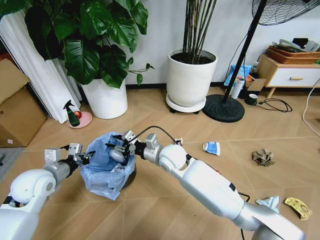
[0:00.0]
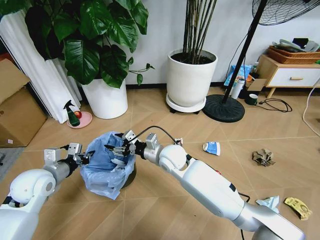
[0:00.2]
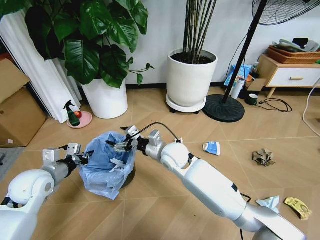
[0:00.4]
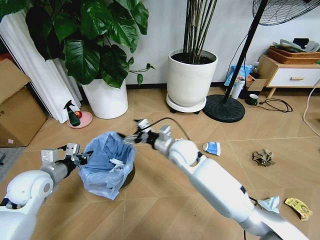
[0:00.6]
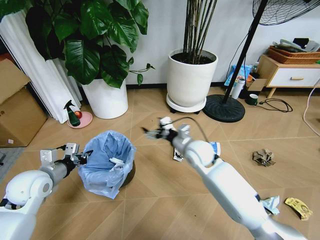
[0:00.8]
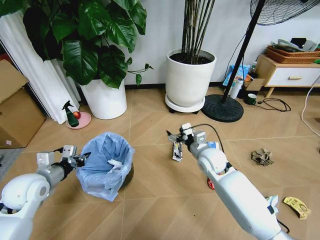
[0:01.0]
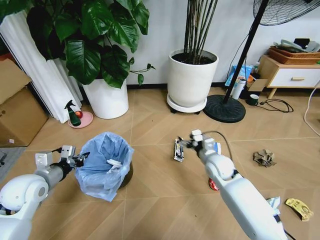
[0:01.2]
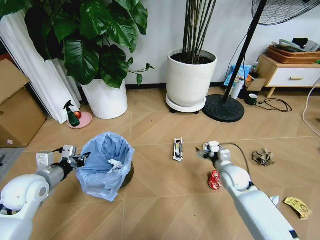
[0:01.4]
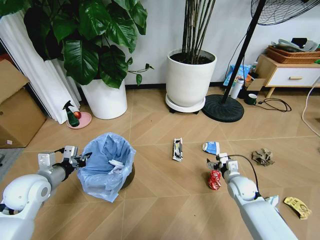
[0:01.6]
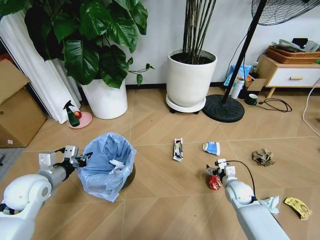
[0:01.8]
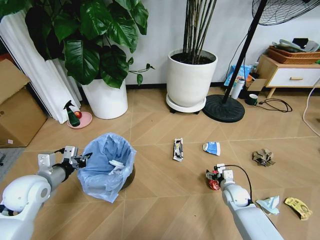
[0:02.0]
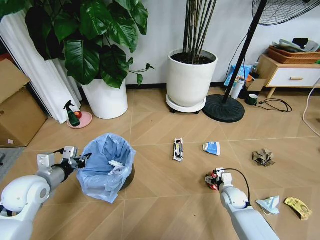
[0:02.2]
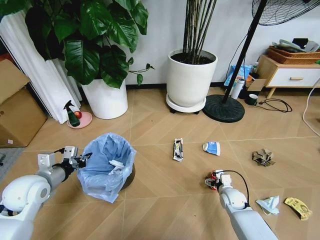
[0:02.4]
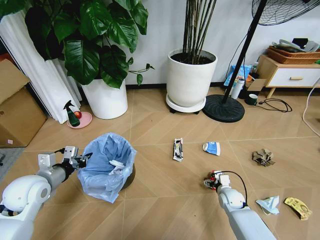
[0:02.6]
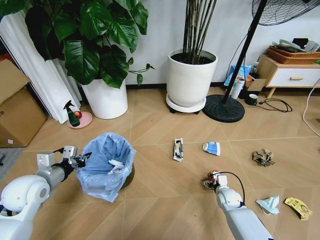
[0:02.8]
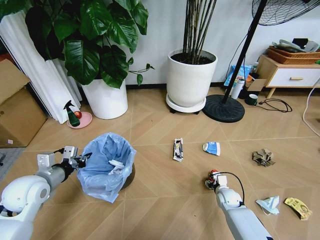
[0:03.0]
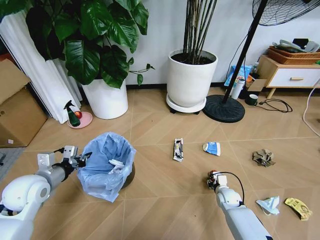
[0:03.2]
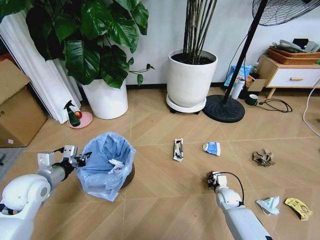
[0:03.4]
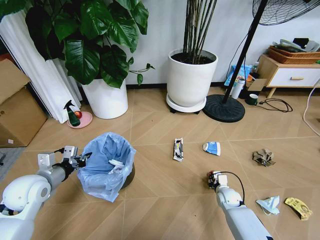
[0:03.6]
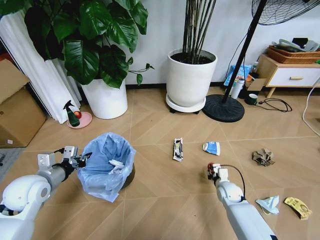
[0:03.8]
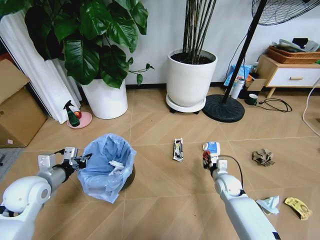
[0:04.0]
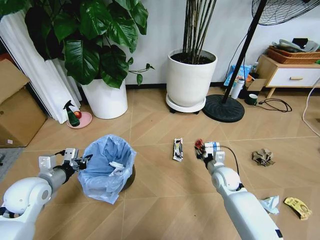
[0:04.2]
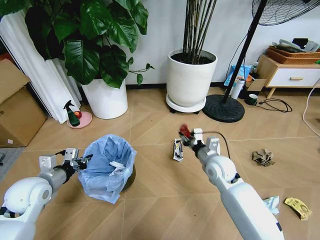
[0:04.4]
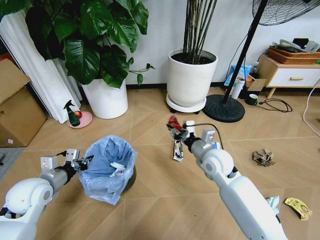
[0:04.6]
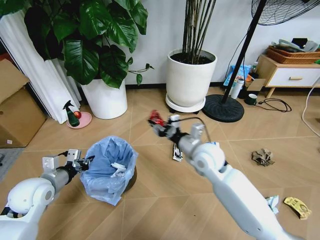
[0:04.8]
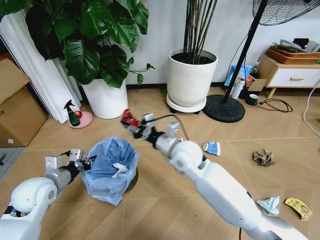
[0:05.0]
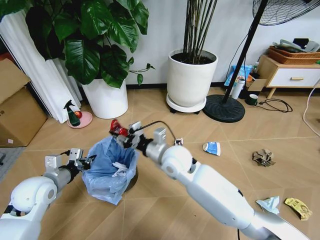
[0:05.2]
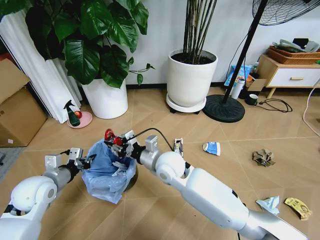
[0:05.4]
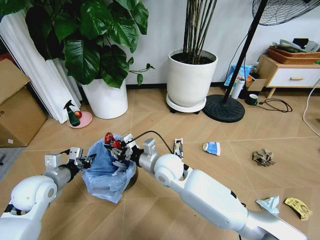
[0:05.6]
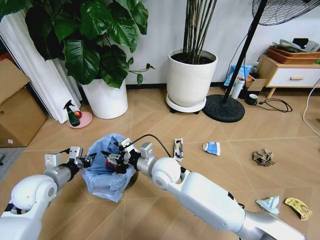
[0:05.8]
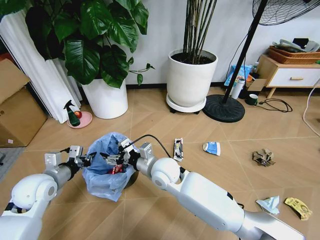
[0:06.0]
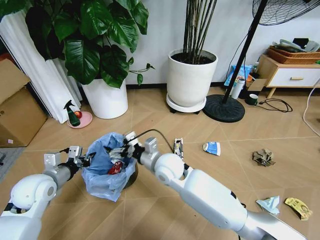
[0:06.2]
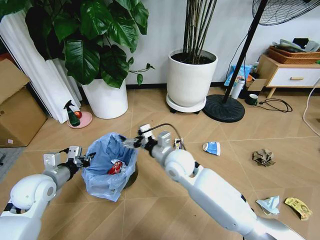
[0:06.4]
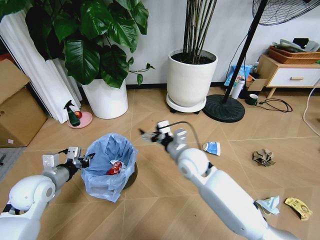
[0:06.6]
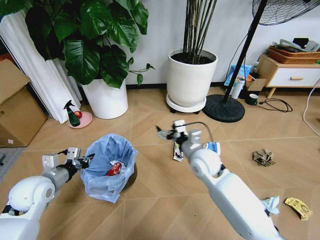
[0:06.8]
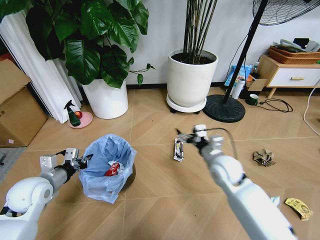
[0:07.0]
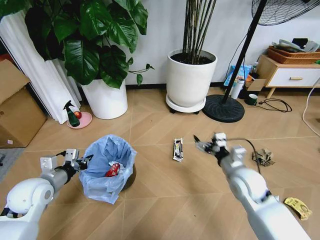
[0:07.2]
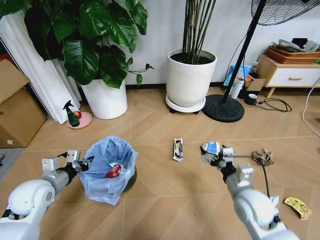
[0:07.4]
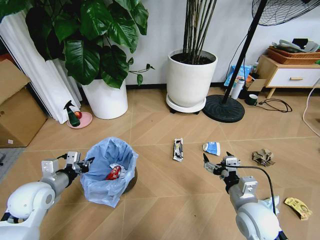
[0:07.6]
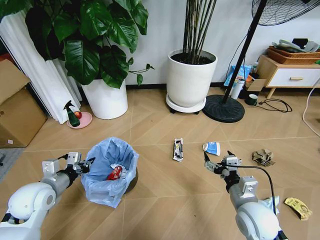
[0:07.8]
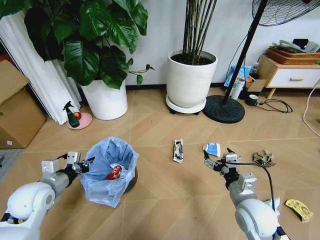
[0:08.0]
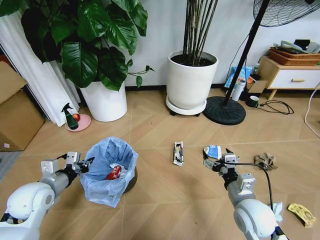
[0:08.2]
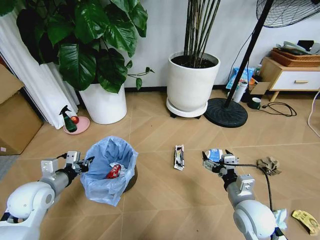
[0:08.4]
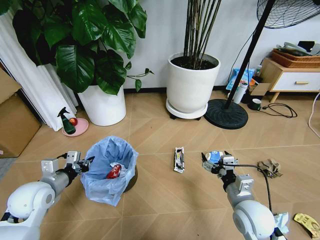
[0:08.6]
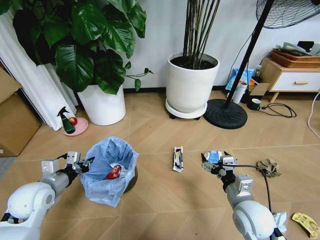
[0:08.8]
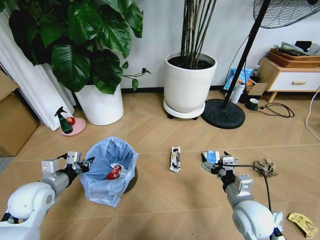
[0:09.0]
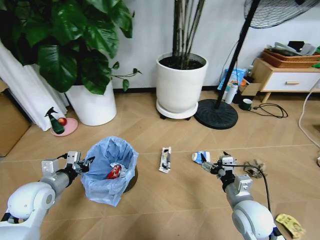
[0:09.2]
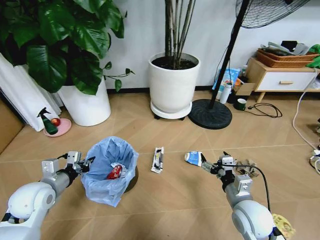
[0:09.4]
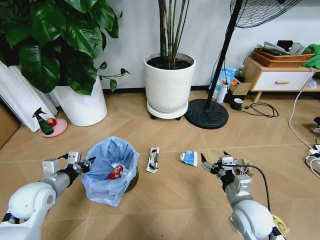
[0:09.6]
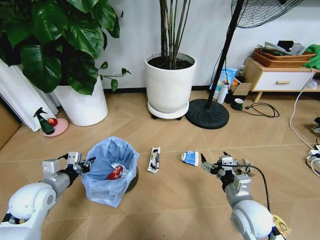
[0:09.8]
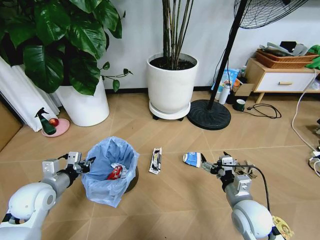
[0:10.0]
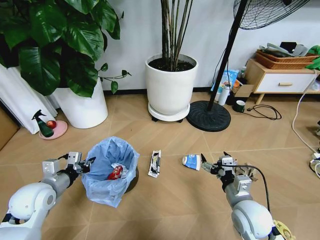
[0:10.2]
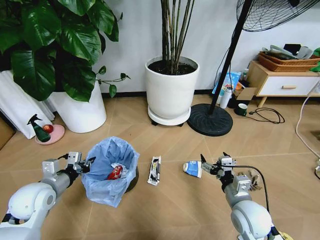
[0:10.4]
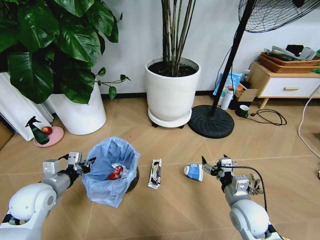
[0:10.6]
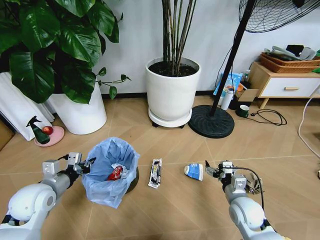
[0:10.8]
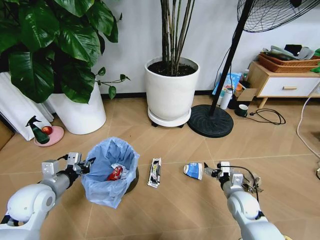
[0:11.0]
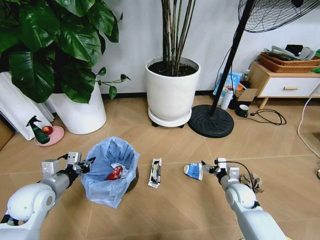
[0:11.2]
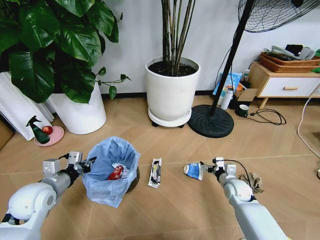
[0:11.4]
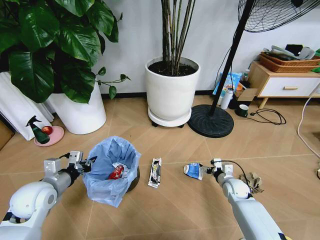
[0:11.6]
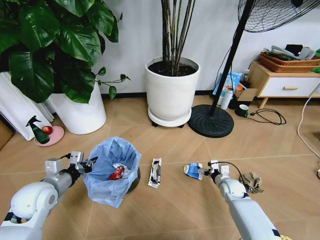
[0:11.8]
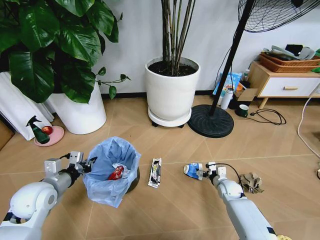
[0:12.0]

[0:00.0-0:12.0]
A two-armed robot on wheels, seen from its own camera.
Task of the whole recording: Pick up the trash bin and place the garbage on the floor into it.
0:00.0 to 0:01.6: The right gripper is displaced to the right and downward by some 30 cm, and opens its fingers.
0:01.6 to 0:03.0: The right gripper moves downward, roughly 10 cm, and closes.
0:03.0 to 0:04.4: The right gripper travels upward and to the left by about 25 cm.
0:04.4 to 0:06.0: The right gripper goes approximately 20 cm to the left, and opens.
0:06.0 to 0:07.6: The right gripper goes roughly 30 cm to the right and backward.
0:10.4 to 0:12.0: The right gripper travels downward and forward by some 25 cm.

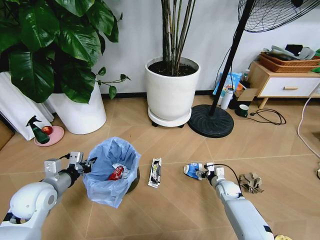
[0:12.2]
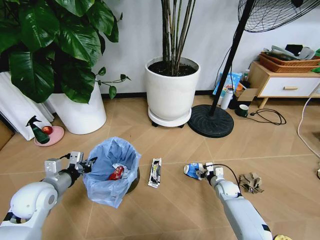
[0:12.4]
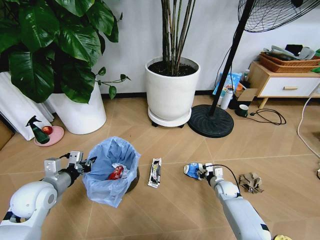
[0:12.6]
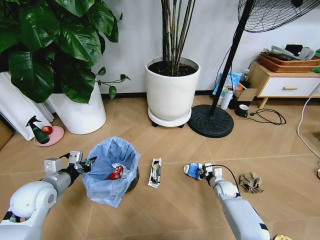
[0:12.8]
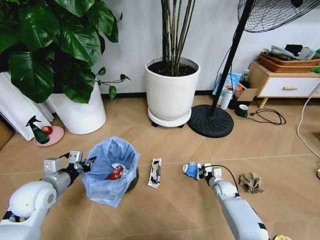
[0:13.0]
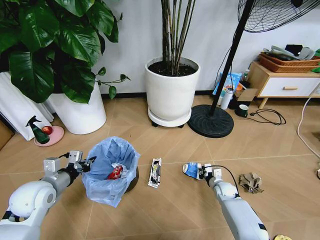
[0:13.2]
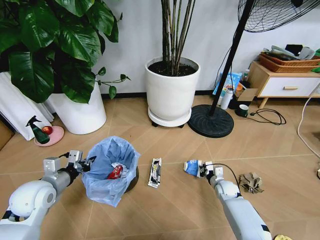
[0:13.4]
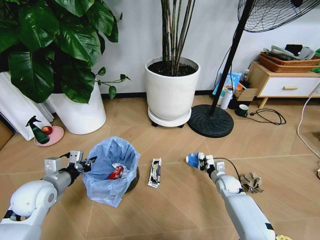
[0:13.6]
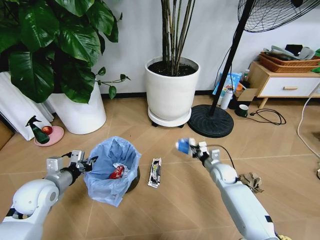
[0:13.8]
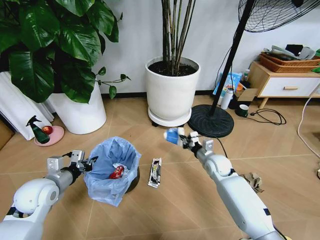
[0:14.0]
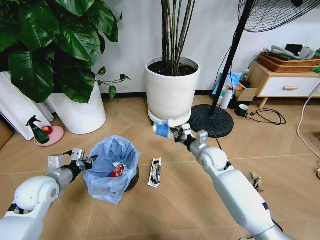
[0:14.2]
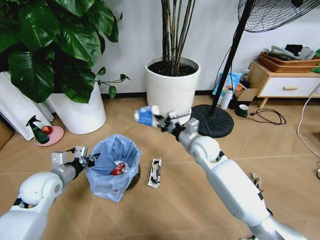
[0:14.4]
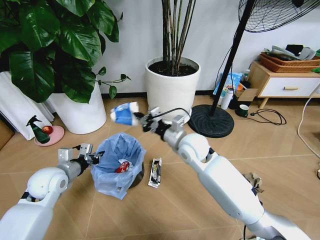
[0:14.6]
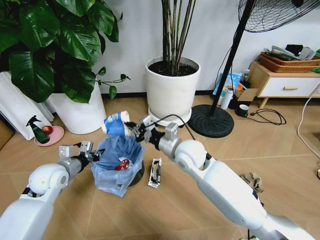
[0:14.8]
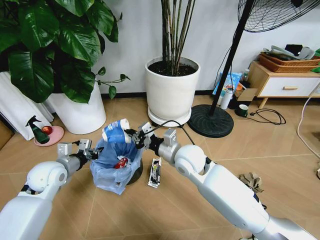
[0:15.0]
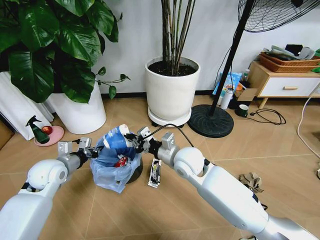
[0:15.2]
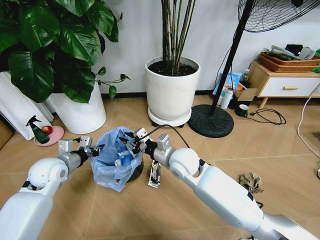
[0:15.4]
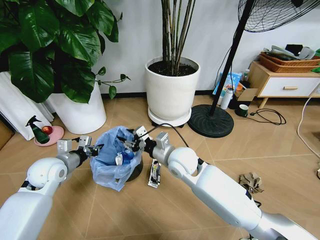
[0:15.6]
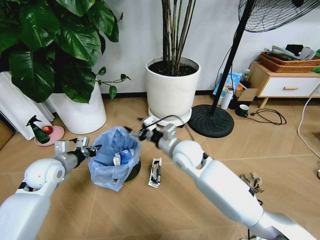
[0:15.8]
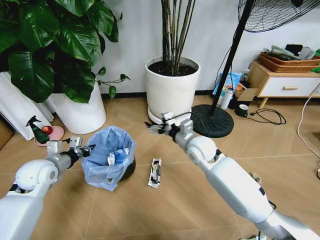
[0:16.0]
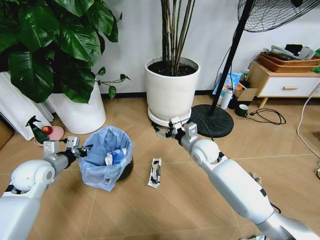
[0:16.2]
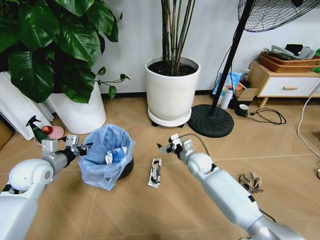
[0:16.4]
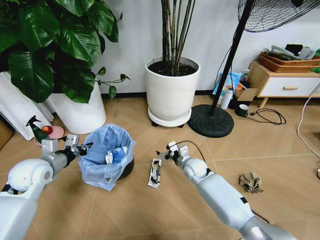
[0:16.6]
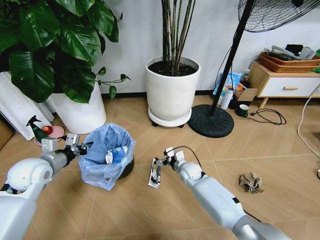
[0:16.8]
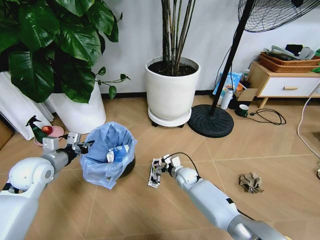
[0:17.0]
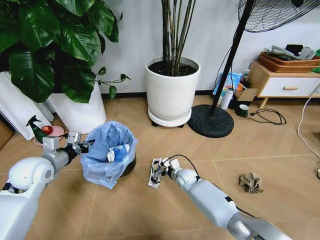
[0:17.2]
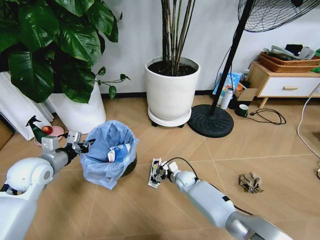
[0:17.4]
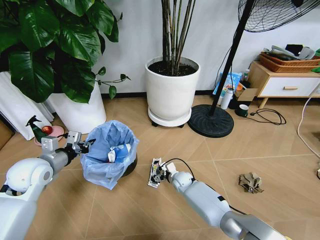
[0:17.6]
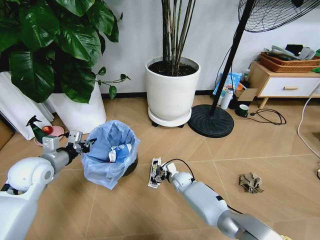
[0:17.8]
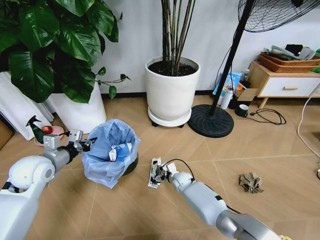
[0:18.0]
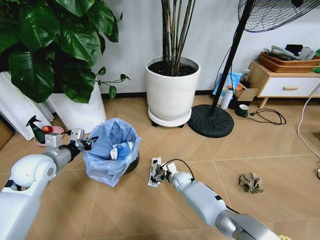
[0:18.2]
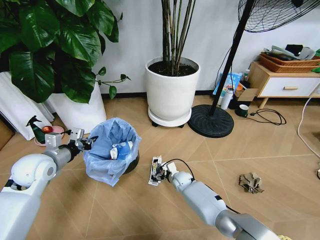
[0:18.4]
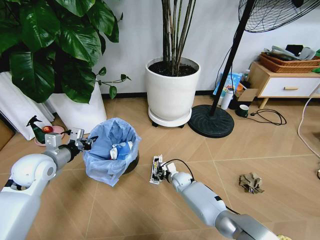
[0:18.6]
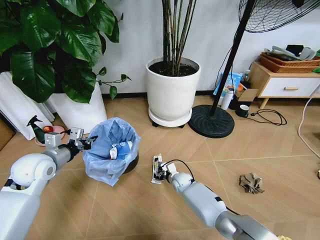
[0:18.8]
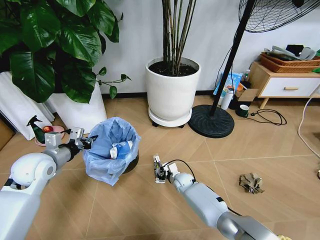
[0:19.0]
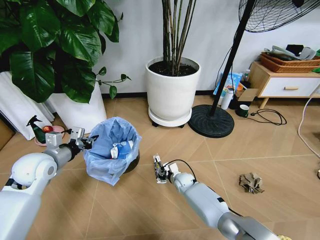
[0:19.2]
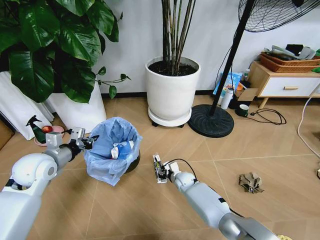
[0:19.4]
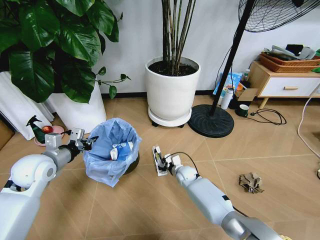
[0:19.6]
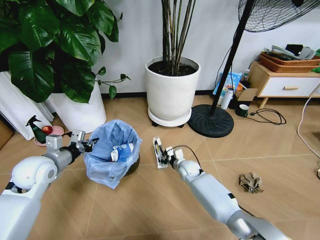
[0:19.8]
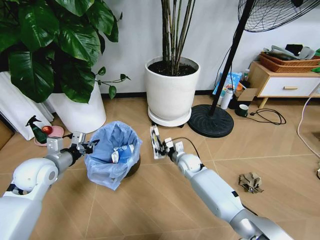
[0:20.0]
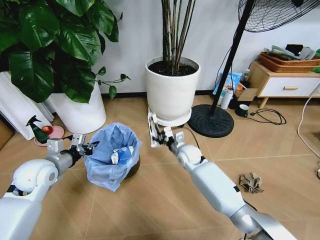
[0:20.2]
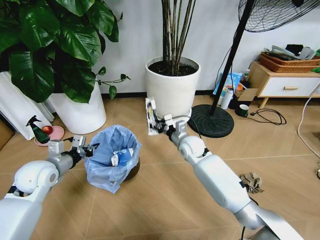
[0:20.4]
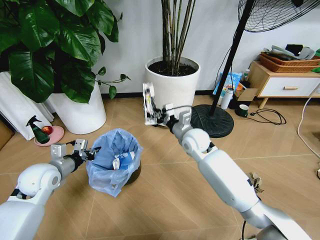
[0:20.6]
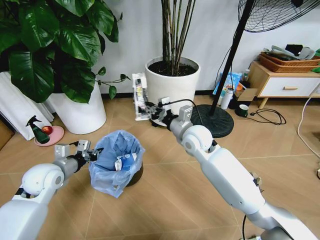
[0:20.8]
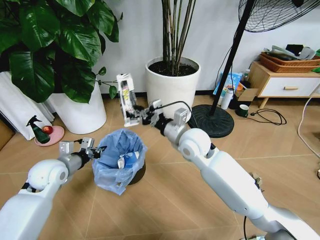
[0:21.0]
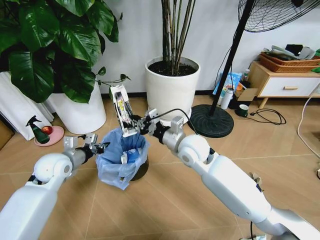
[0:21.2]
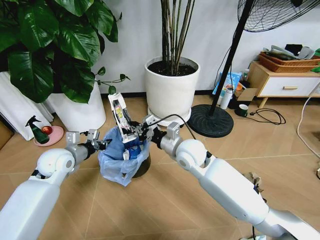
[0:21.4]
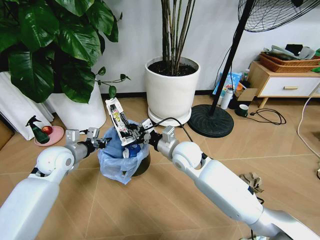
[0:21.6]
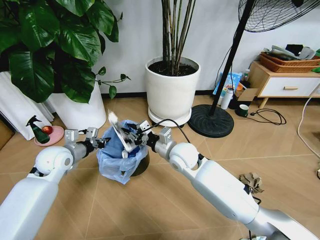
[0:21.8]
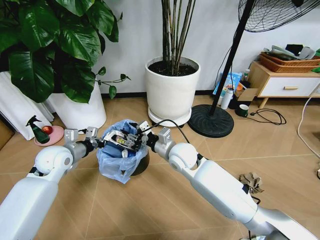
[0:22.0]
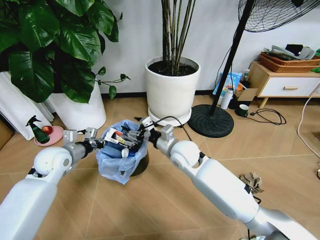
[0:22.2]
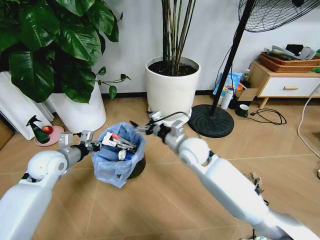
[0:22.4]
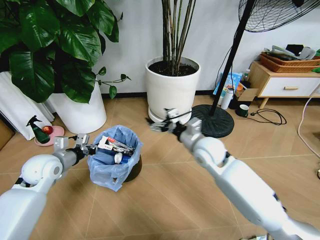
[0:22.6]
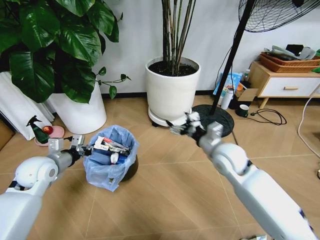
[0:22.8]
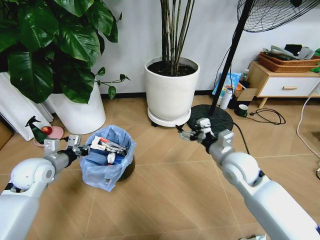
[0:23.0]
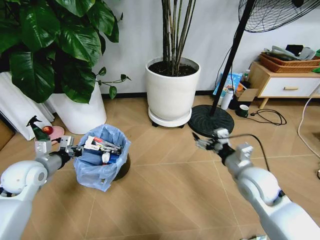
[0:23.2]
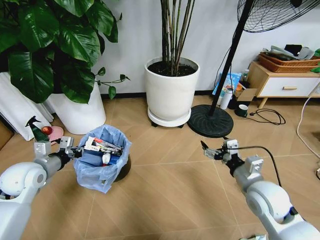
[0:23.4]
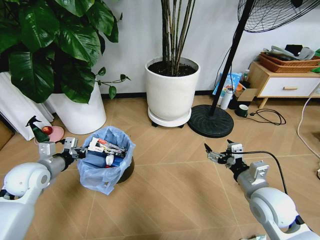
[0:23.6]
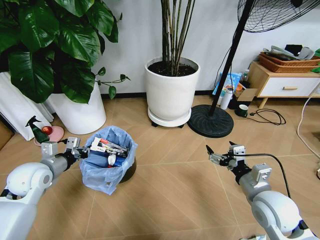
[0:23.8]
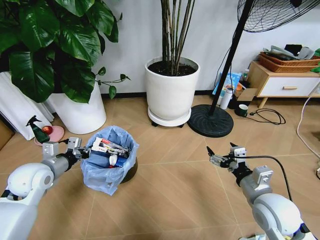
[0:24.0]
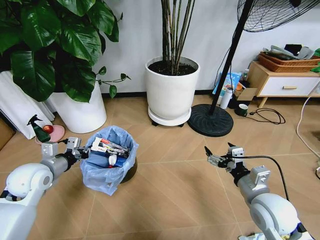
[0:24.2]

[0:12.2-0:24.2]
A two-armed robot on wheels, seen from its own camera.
Task of the whole recording: Pick up the trash bin and place the garbage on the floor into it.
0:12.2 to 0:13.8: The right gripper goes some 10 cm upward, and closes its fingers.
0:13.8 to 0:15.2: The right gripper goes approximately 25 cm to the left and upward; the left gripper heads forward, covering roughly 5 cm.
0:15.2 to 0:16.6: The right gripper moves downward, approximately 15 cm, and opens its fingers.
0:16.6 to 0:18.2: The right gripper heads downward, covering about 10 cm.
0:18.2 to 0:19.8: The right gripper goes approximately 5 cm upward, and closes up.
0:19.8 to 0:21.2: The right gripper is displaced upward by about 25 cm. Meanwhile the left gripper changes place by roughly 5 cm.
0:21.2 to 0:22.6: The right gripper heads to the right, covering approximately 5 cm, and opens up.
0:22.6 to 0:24.2: The right gripper travels backward and to the right by roughly 20 cm.
